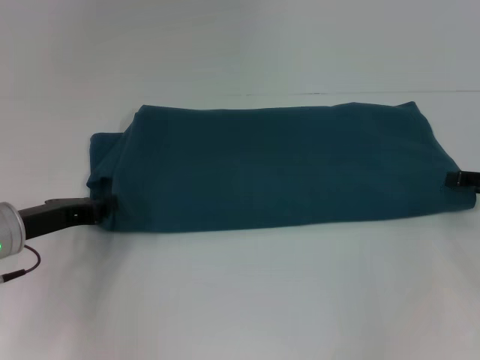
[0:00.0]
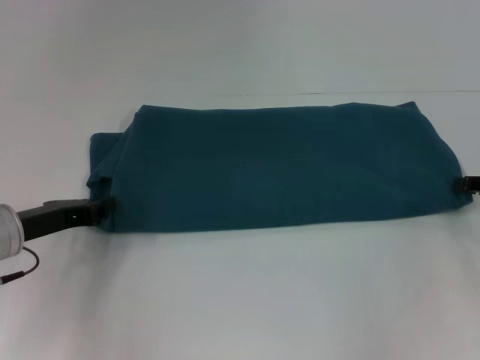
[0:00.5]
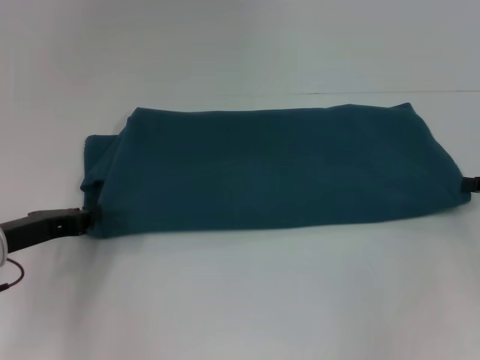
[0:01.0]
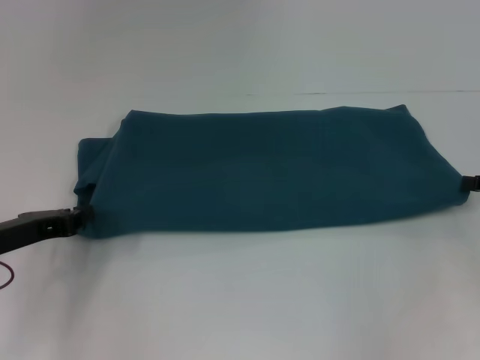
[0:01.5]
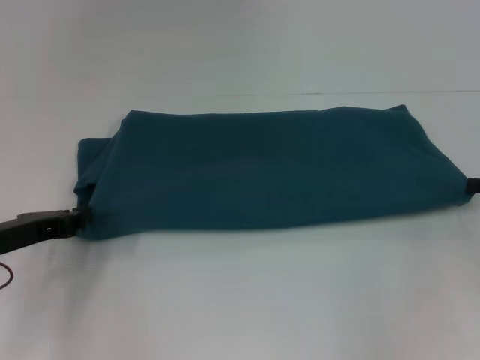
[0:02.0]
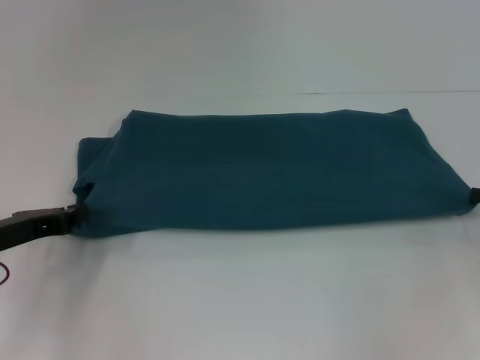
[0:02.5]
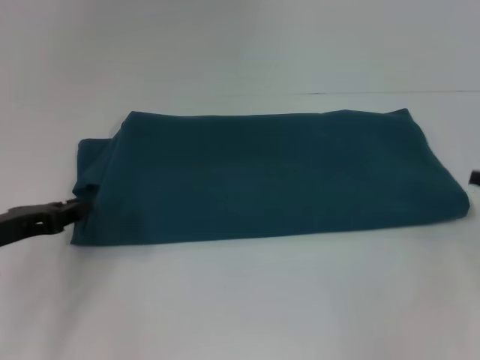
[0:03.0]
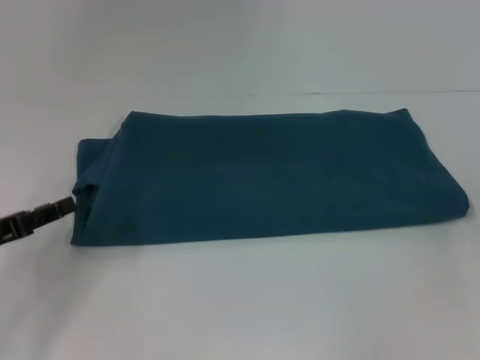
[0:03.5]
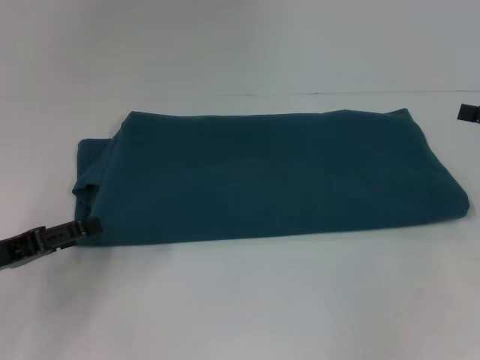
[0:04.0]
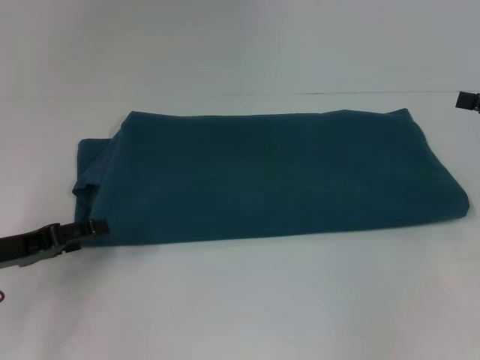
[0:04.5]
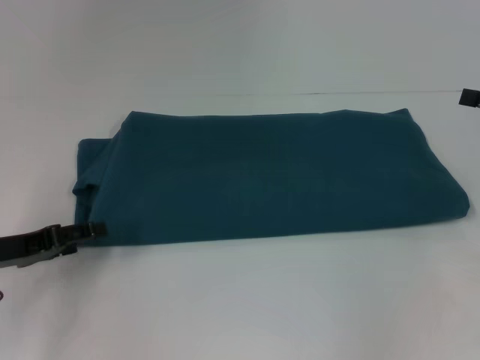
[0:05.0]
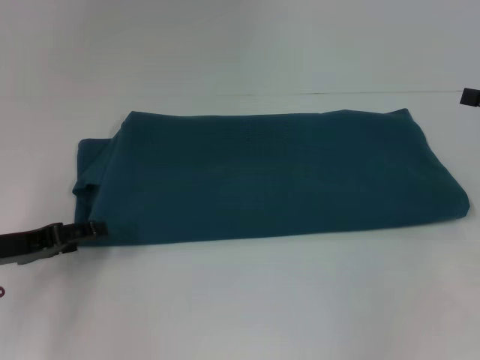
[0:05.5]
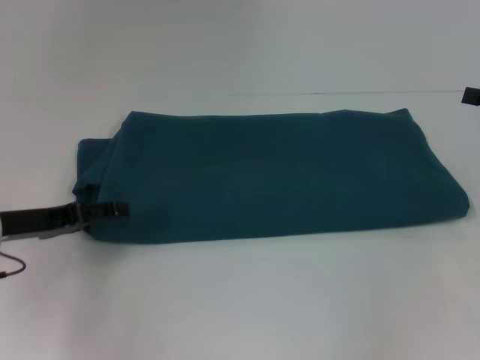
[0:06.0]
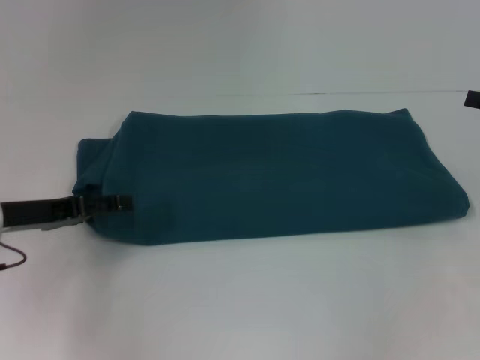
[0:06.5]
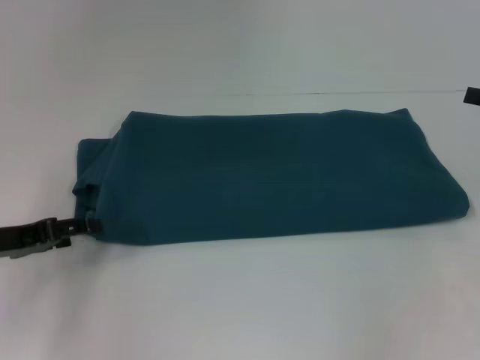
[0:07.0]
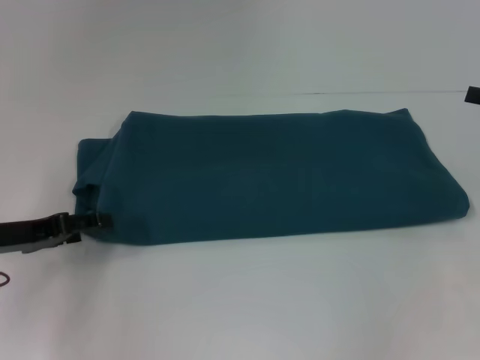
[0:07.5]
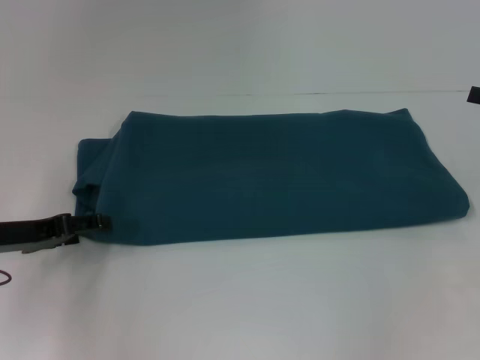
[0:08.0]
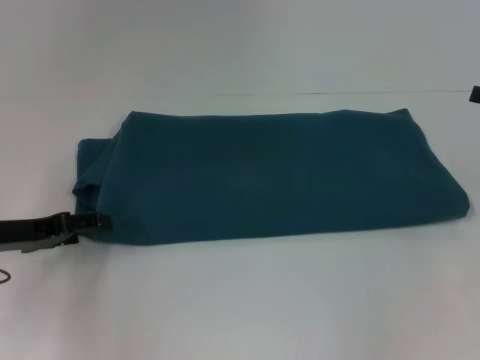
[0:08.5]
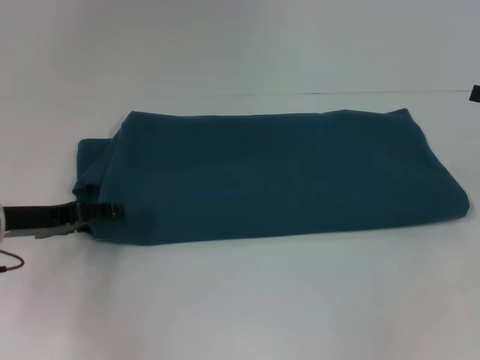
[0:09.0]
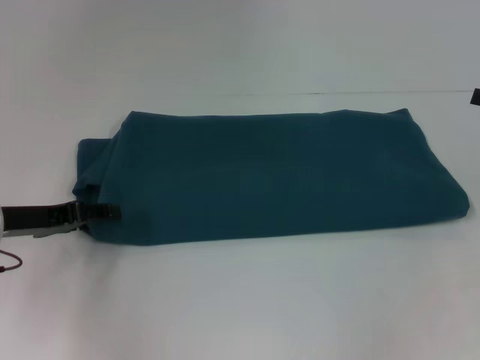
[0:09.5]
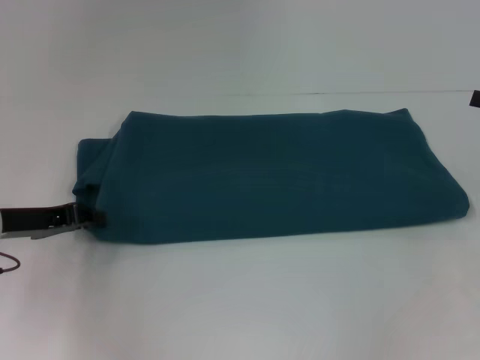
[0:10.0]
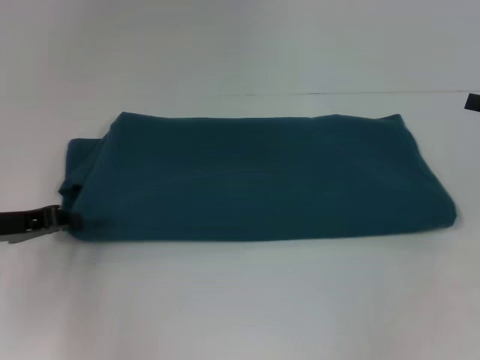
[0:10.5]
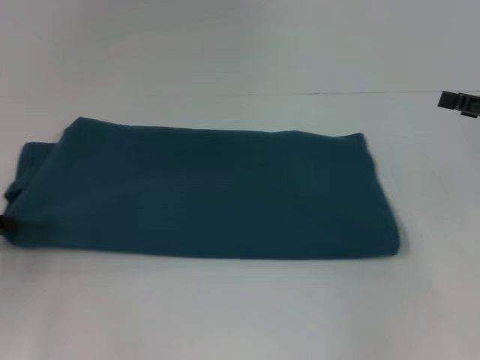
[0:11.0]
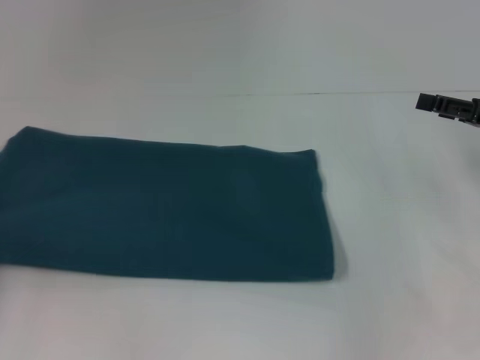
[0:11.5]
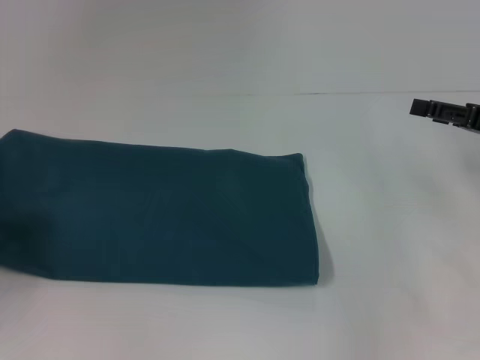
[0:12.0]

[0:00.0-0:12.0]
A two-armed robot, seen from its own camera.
0:00.0 to 0:02.0: The right gripper closes.
0:02.0 to 0:04.0: The left gripper opens up, while the right gripper travels upward by roughly 5 cm, and opens.
0:04.0 to 0:06.0: The left gripper heads forward, covering approximately 5 cm.
0:06.0 to 0:08.0: The grippers move only a little.
0:08.0 to 0:10.0: The left gripper closes up.
0:10.0 to 0:12.0: The left gripper goes approximately 10 cm to the left and backward, and closes its fingers. The right gripper travels to the left by approximately 5 cm.

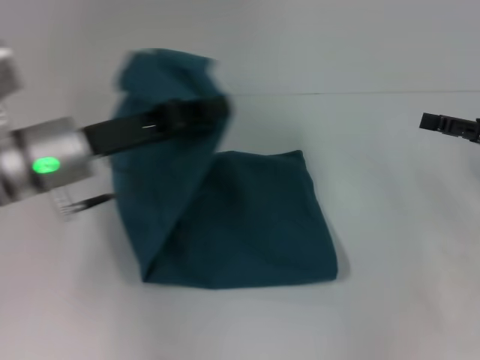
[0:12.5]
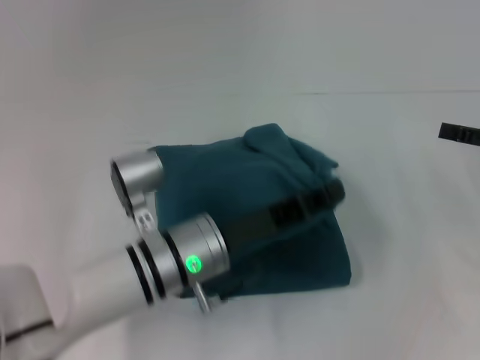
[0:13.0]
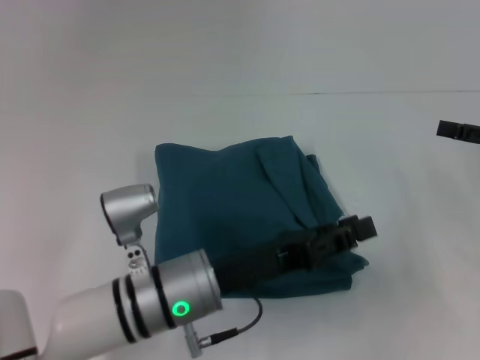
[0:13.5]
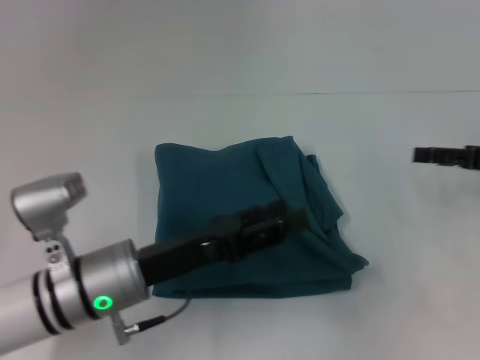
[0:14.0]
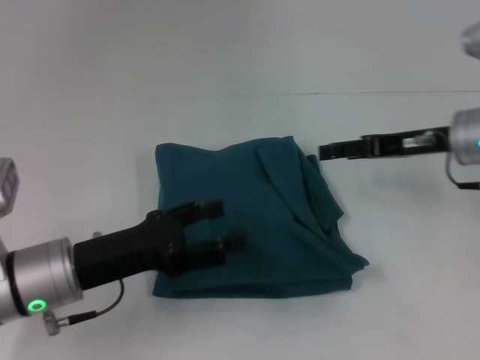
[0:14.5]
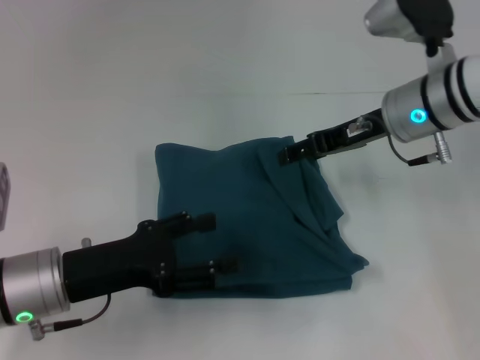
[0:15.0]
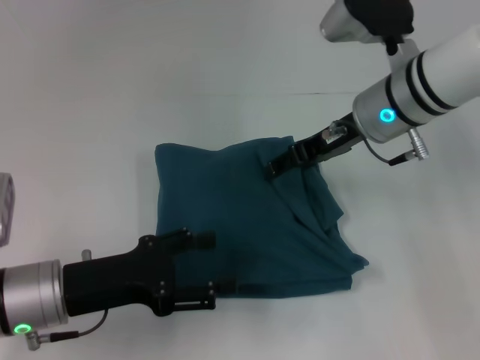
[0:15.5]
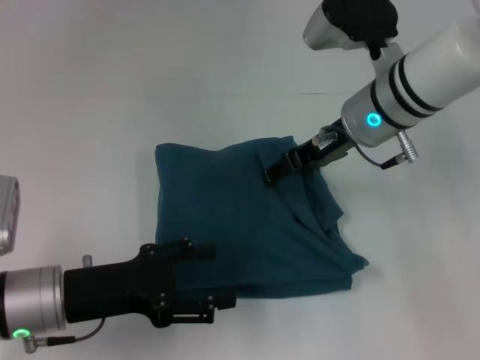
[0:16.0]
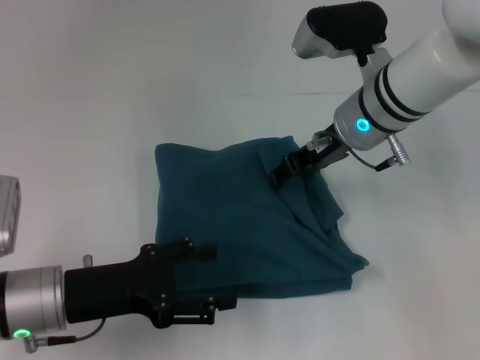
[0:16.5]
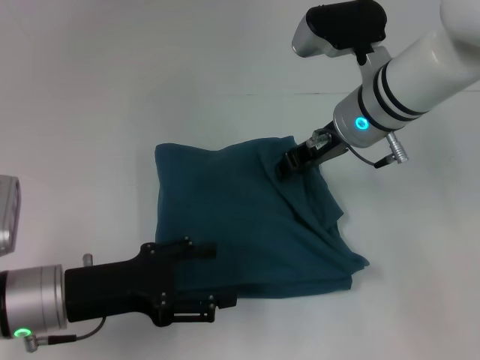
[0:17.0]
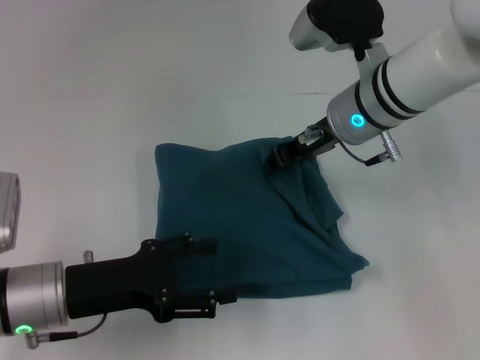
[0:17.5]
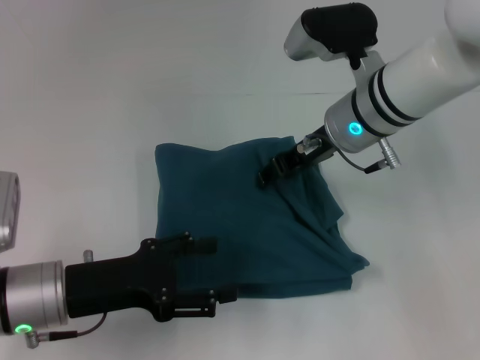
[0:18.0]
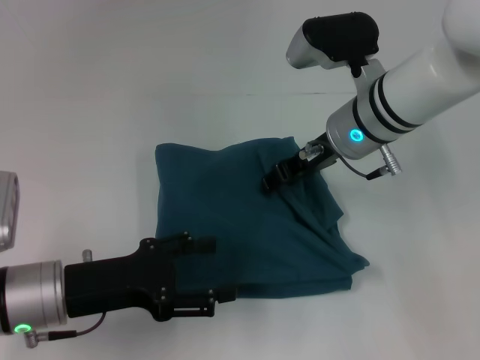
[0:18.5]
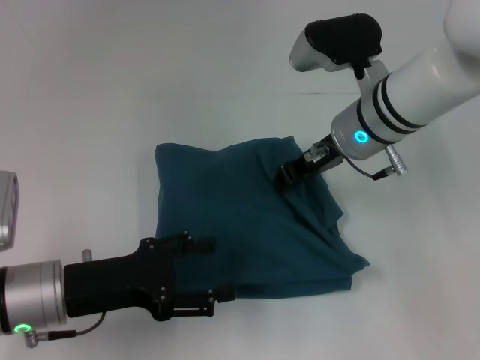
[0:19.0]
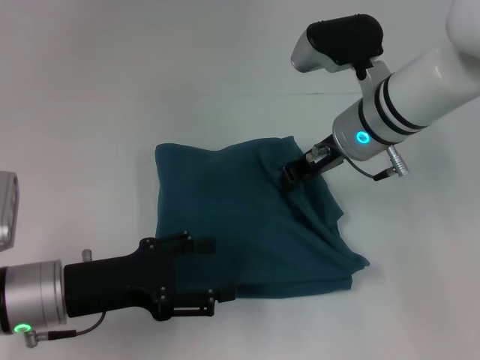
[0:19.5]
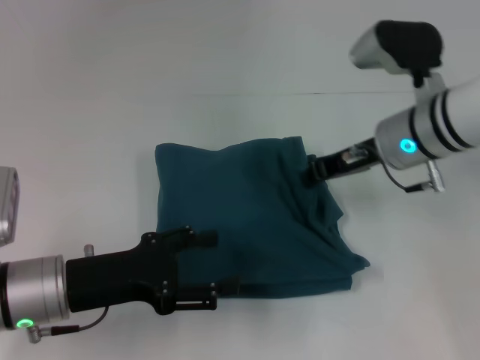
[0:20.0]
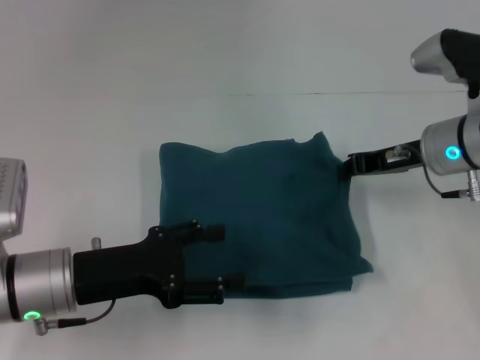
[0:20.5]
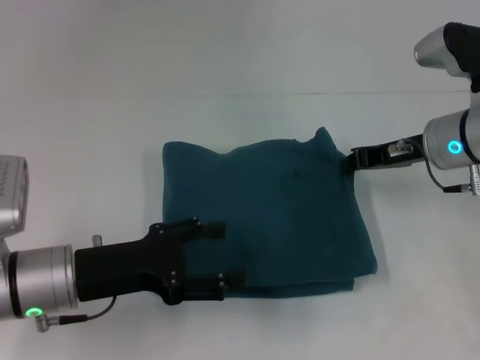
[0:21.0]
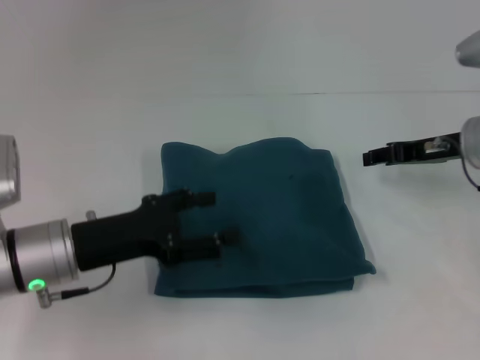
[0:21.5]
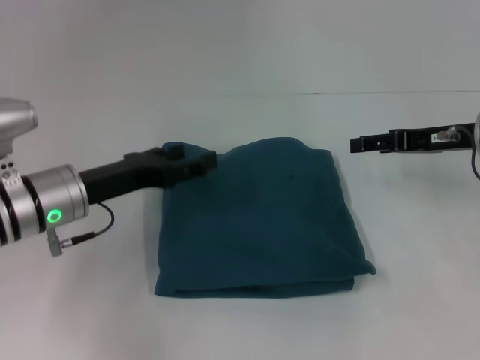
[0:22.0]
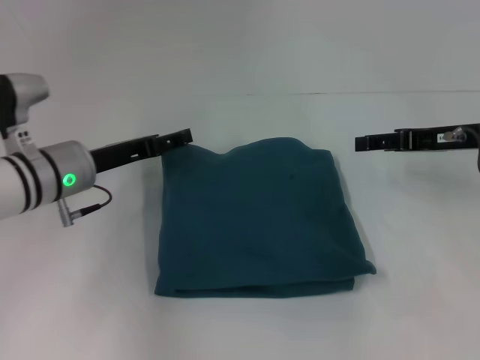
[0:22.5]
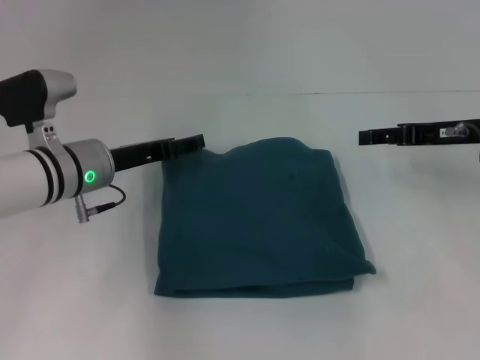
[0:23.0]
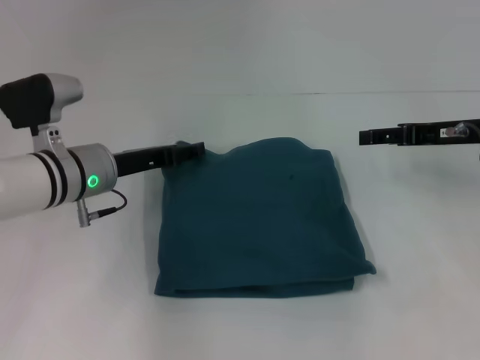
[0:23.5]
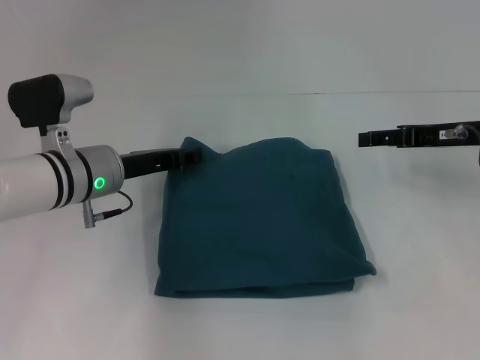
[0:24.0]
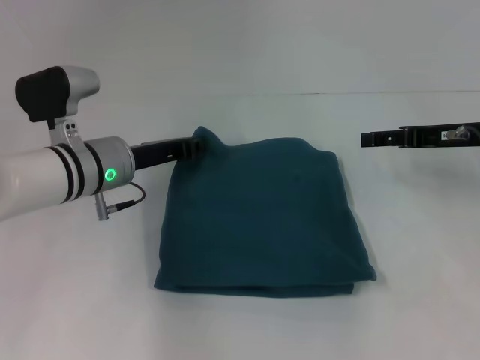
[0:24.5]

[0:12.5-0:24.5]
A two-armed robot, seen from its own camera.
0:12.5 to 0:14.5: The left gripper is displaced backward and downward by approximately 10 cm, moves about 10 cm to the right and comes back, and opens. The right gripper goes some 10 cm to the left.
0:14.5 to 0:16.5: The right gripper heads to the left, covering some 15 cm.
0:16.5 to 0:18.5: The grippers make only small movements.
0:18.5 to 0:20.5: The right gripper heads to the right, covering some 10 cm, and closes its fingers.
0:20.5 to 0:22.5: The right gripper moves to the right, roughly 5 cm, and opens up, while the left gripper heads forward, covering about 10 cm.
0:22.5 to 0:24.5: The left gripper closes.

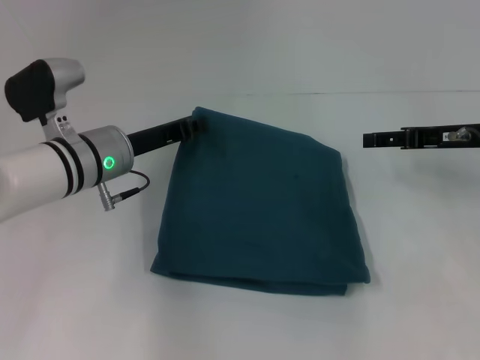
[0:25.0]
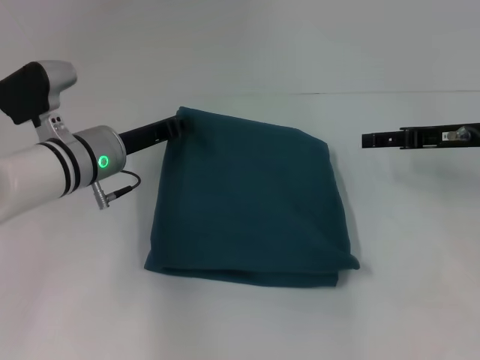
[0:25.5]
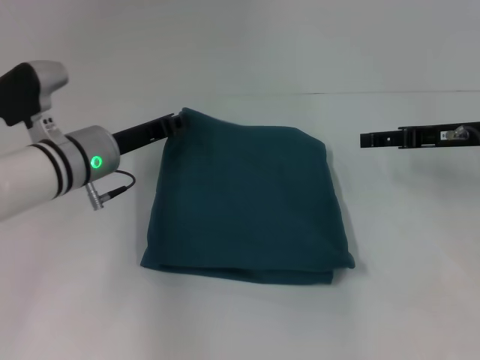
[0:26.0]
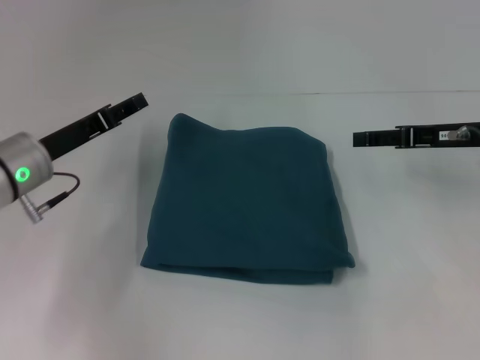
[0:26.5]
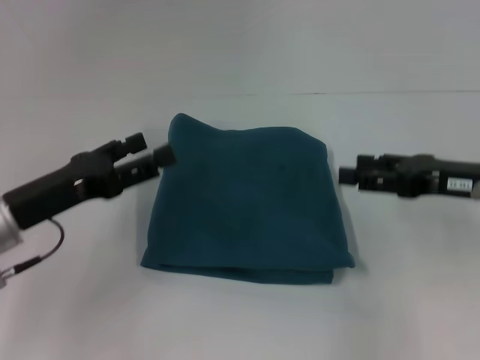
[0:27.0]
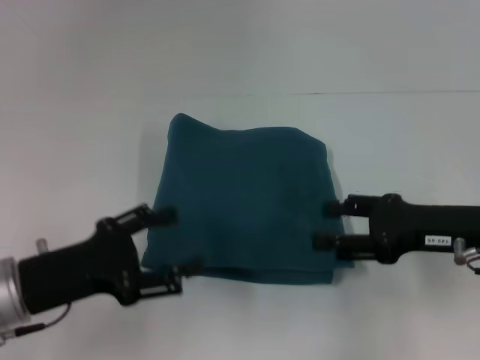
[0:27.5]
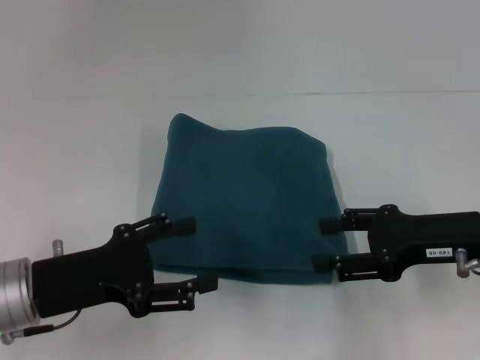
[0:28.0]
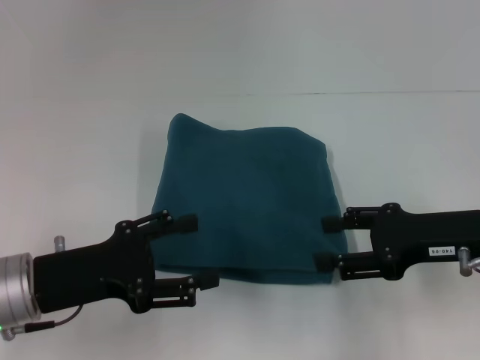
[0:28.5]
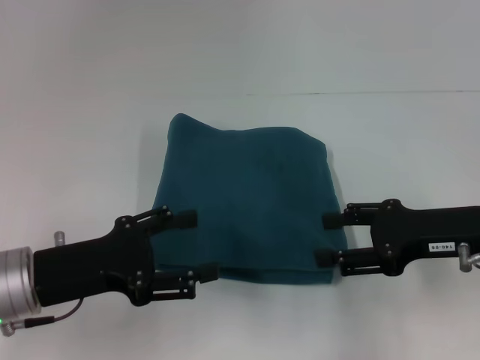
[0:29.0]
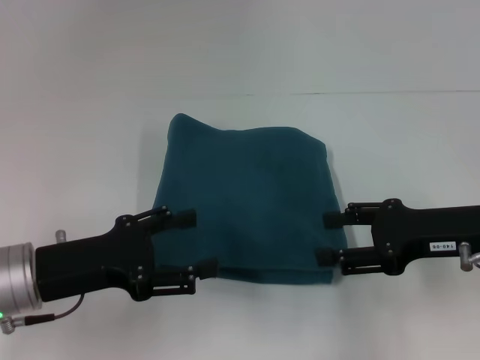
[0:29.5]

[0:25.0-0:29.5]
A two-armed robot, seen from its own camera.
0:25.0 to 0:27.0: The left gripper travels backward and to the left by about 15 cm, and opens its fingers, while the right gripper goes roughly 5 cm backward.
